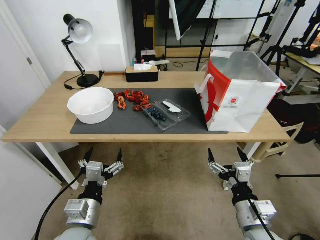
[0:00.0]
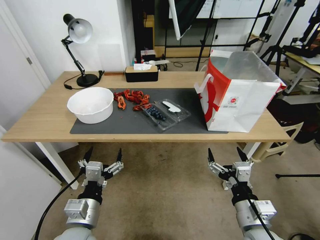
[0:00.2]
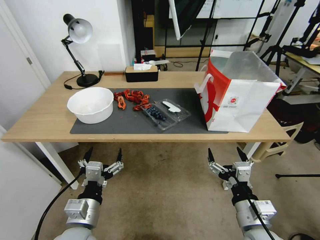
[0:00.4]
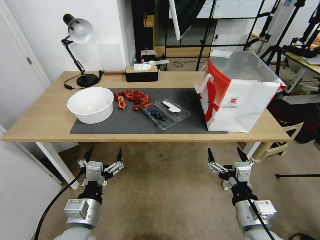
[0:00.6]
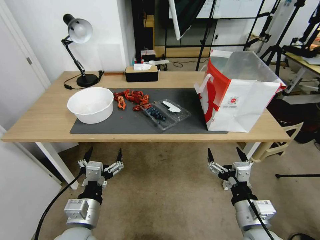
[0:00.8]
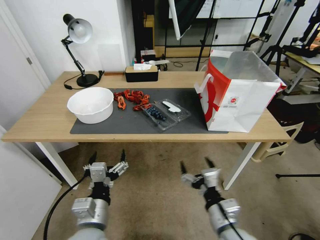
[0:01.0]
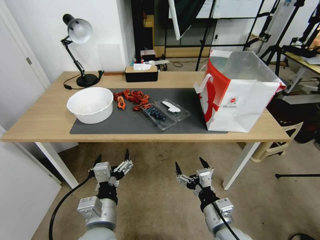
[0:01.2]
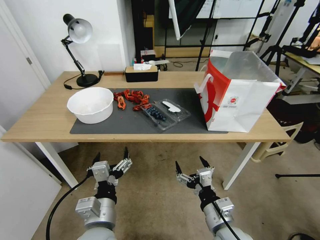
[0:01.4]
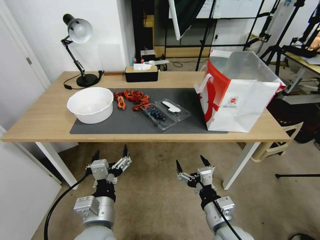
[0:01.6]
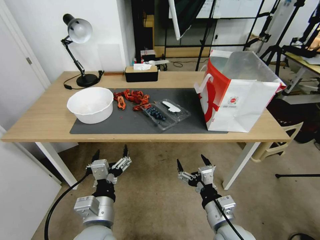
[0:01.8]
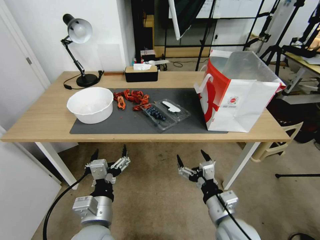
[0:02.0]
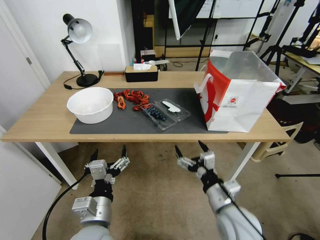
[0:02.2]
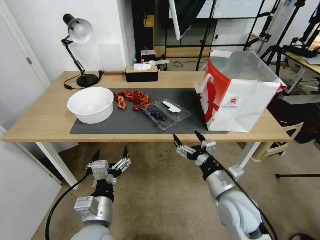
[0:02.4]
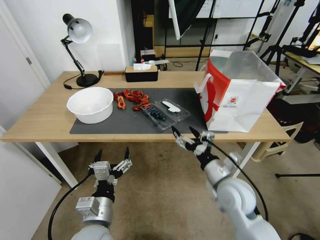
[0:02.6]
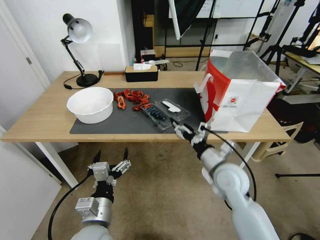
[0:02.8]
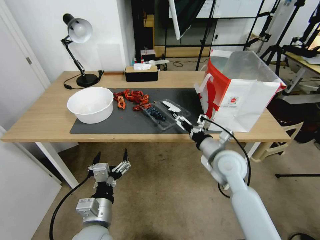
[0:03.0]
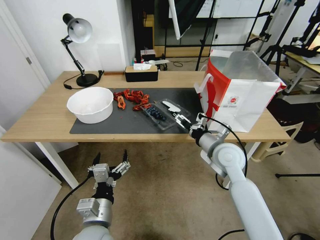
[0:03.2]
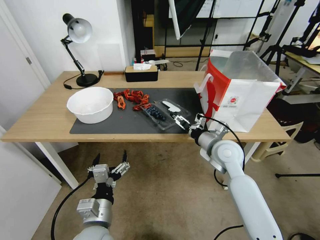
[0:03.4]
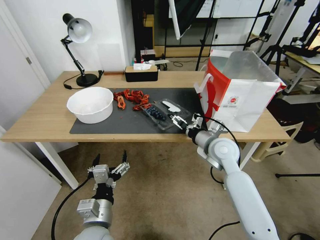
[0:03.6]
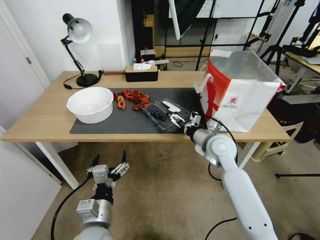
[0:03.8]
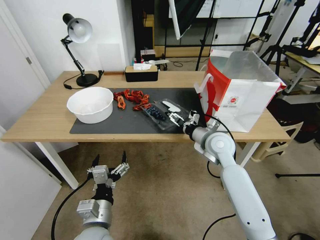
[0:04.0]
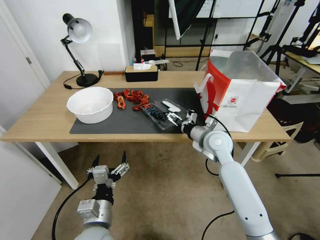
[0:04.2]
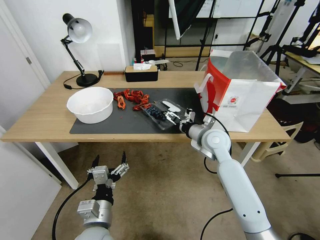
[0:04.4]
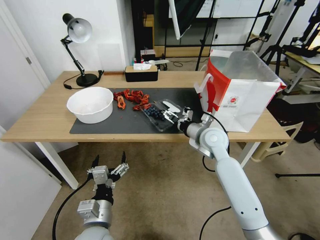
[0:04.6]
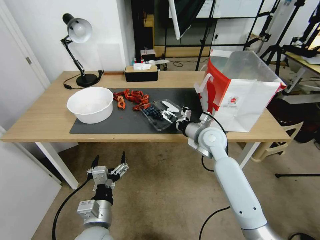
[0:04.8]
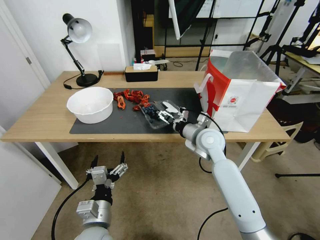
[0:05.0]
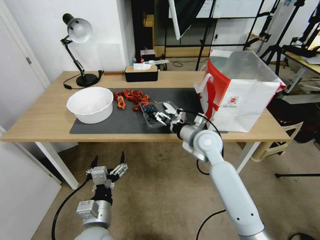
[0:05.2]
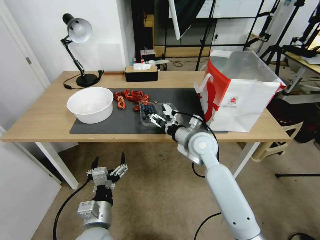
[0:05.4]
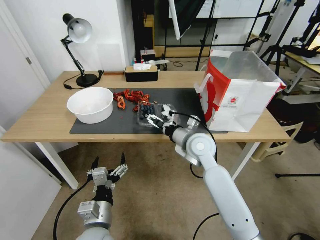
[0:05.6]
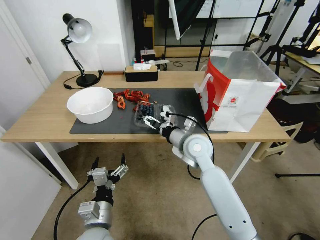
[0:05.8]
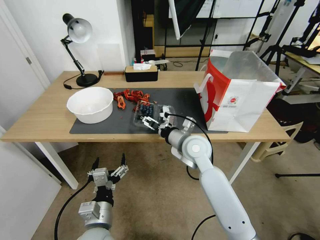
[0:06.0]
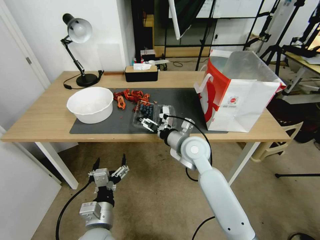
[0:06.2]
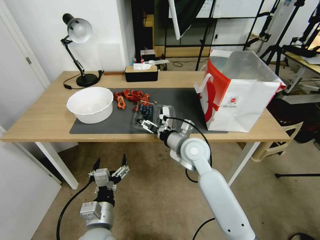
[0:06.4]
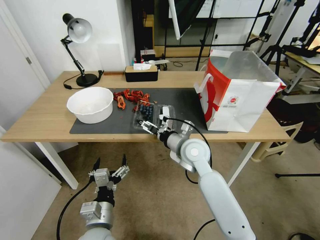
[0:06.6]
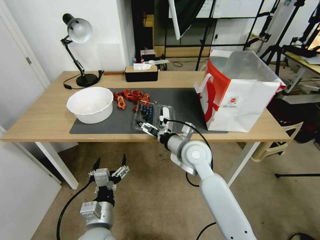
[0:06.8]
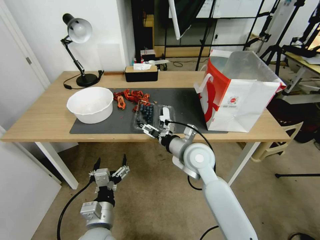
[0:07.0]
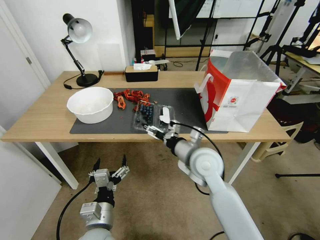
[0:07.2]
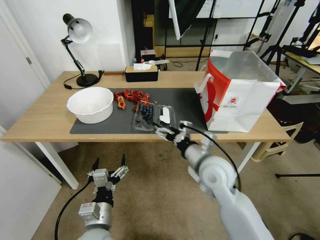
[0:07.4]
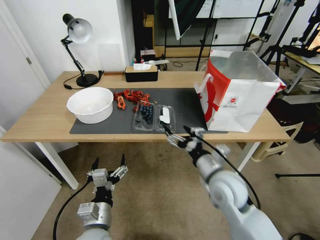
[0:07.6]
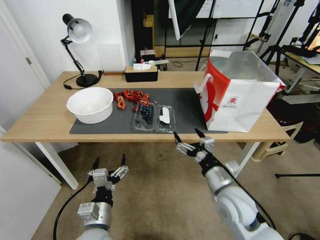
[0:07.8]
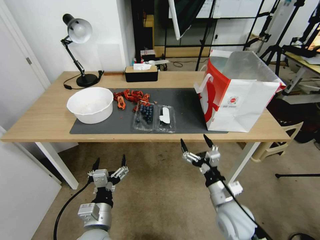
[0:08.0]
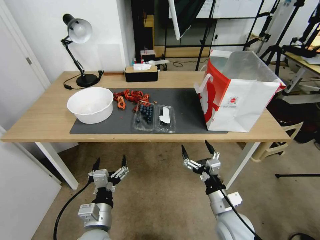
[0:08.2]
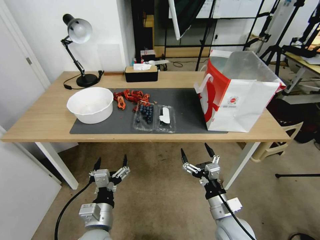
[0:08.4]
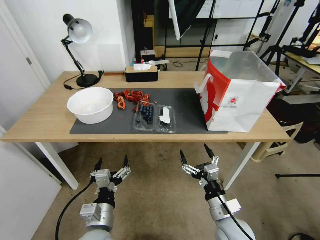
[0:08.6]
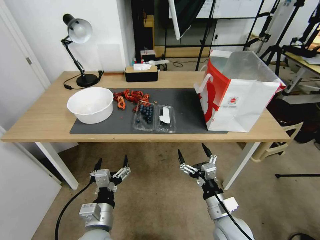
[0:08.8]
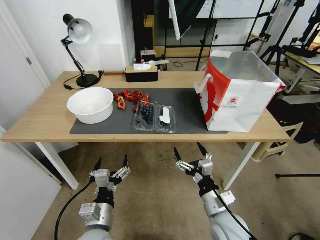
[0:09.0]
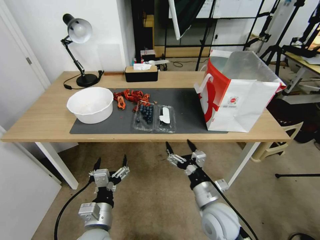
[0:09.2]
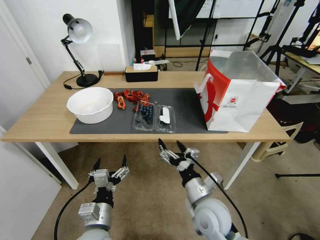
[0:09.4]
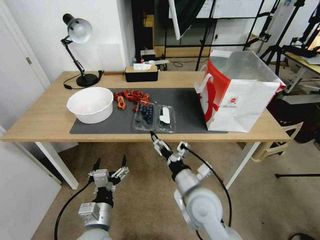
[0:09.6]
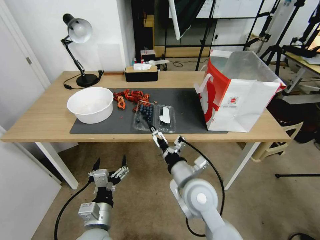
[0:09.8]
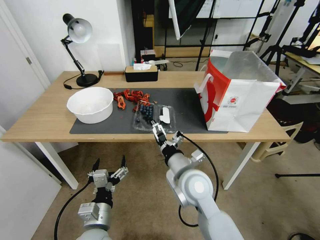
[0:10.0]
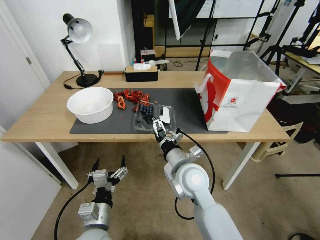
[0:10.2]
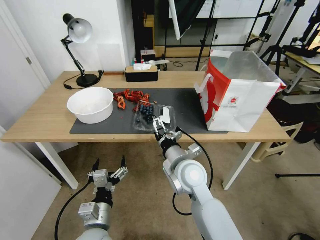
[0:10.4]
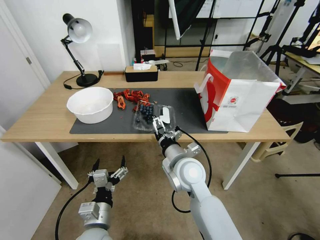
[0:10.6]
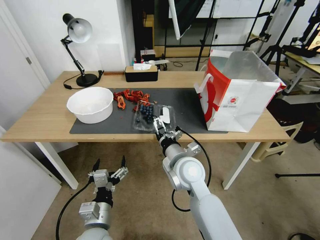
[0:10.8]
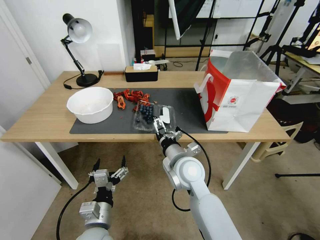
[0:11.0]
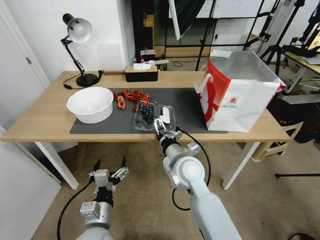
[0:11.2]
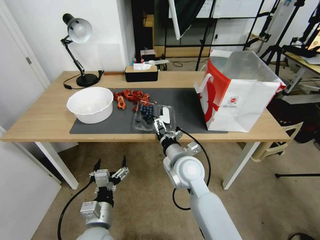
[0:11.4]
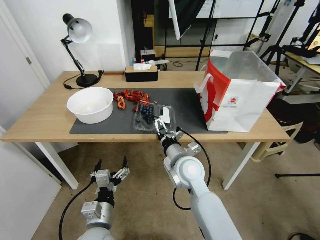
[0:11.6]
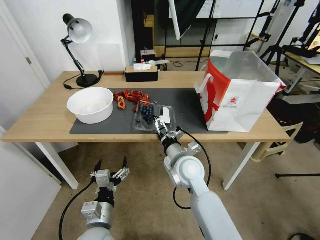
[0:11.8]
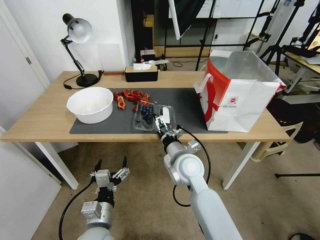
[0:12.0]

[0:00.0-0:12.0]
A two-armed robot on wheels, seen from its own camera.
Task of the whole recording: Close the takeout container lid, then place the container into the takeout bag.
0:01.6 to 0:03.0: The right gripper heads forward, covering some 20 cm.
0:03.0 to 0:04.4: The right gripper goes roughly 10 cm forward.
0:04.4 to 0:06.0: The right gripper heads to the left, covering about 10 cm.
0:06.0 to 0:07.6: The right gripper is displaced backward and to the right by approximately 15 cm.
0:07.6 to 0:09.0: The right gripper goes some 10 cm downward and backward.
0:09.0 to 0:10.4: The right gripper moves forward, to the left and upward, roughly 20 cm.
0:10.4 to 0:12.0: The grippers move only a little.

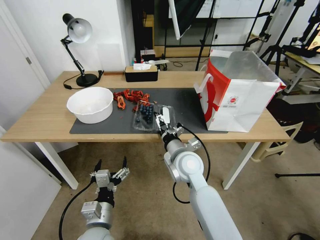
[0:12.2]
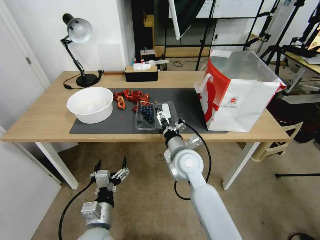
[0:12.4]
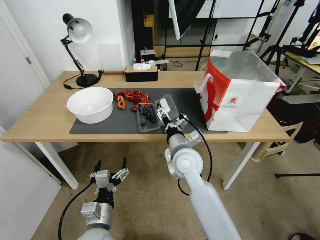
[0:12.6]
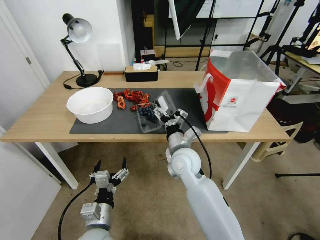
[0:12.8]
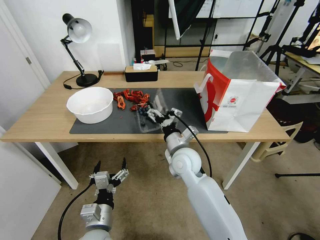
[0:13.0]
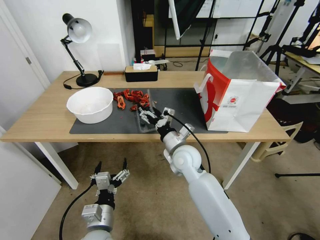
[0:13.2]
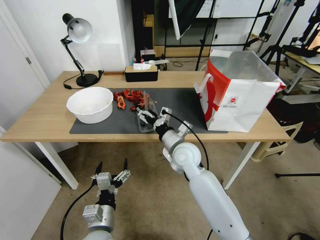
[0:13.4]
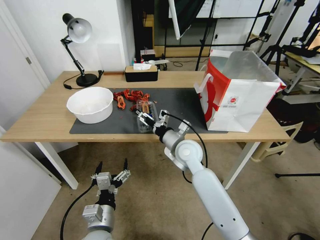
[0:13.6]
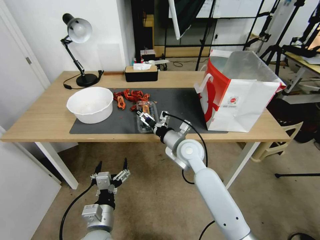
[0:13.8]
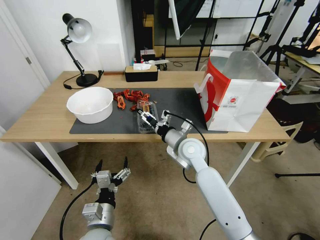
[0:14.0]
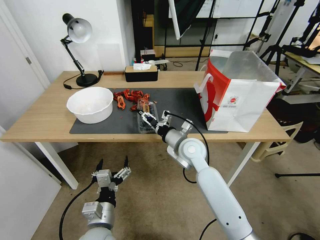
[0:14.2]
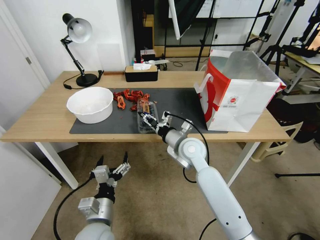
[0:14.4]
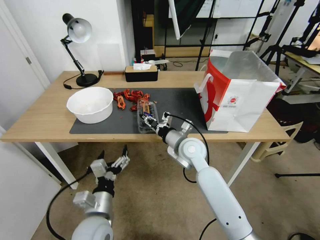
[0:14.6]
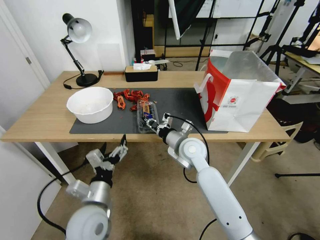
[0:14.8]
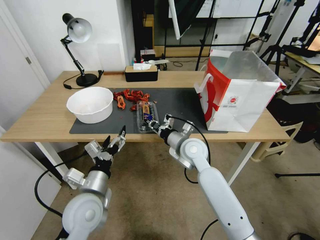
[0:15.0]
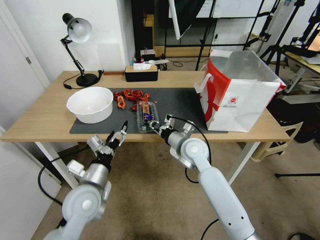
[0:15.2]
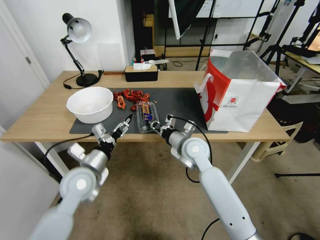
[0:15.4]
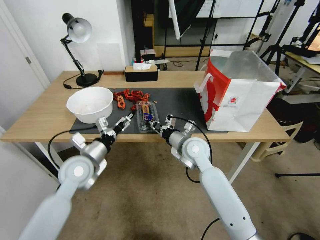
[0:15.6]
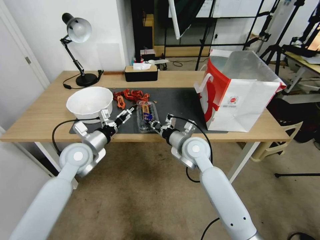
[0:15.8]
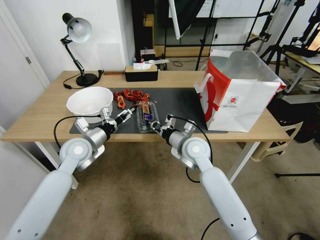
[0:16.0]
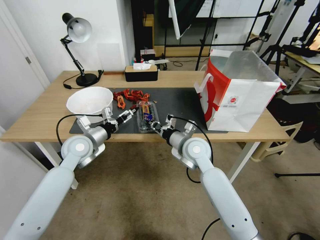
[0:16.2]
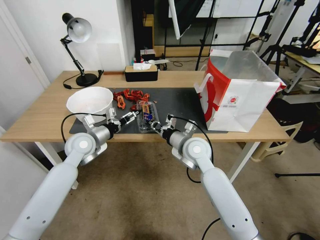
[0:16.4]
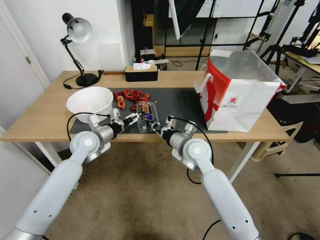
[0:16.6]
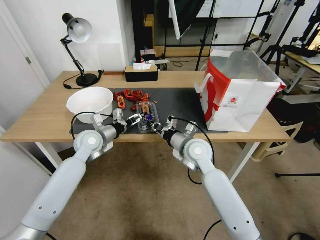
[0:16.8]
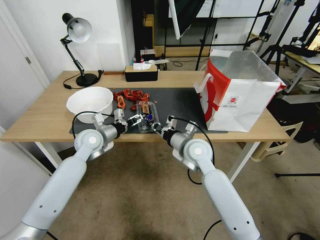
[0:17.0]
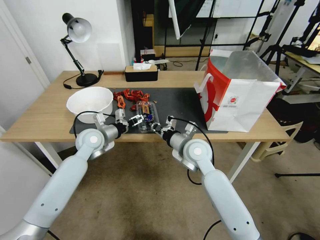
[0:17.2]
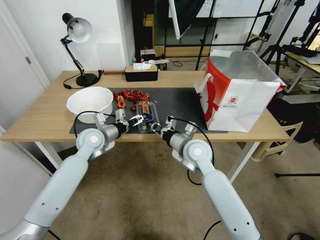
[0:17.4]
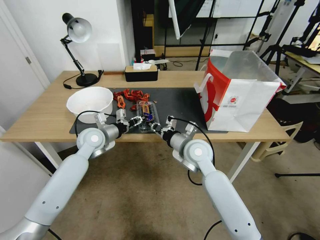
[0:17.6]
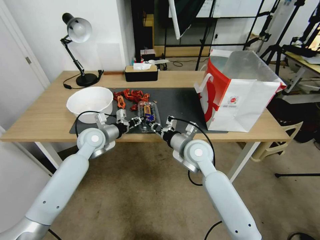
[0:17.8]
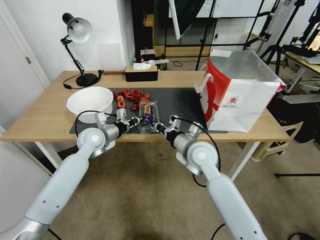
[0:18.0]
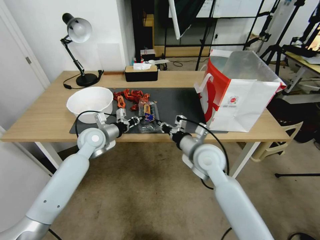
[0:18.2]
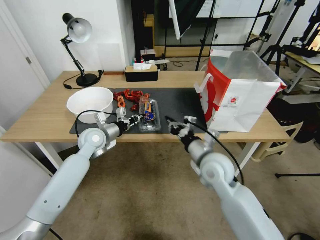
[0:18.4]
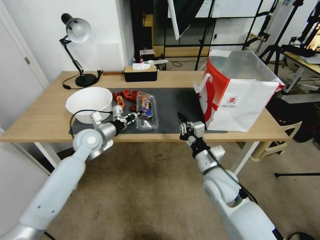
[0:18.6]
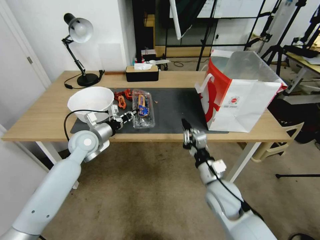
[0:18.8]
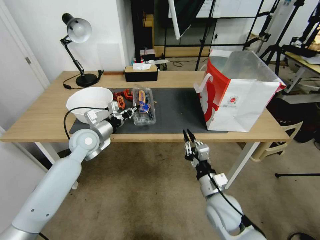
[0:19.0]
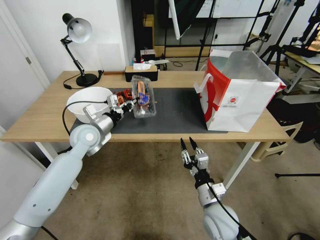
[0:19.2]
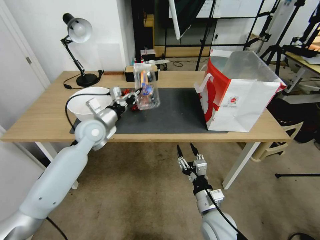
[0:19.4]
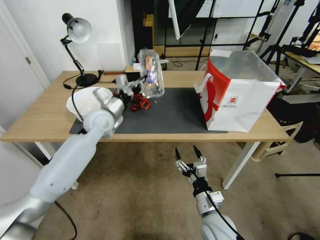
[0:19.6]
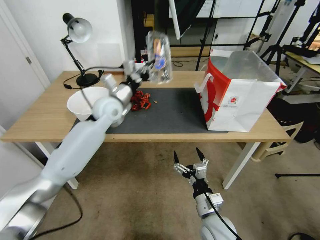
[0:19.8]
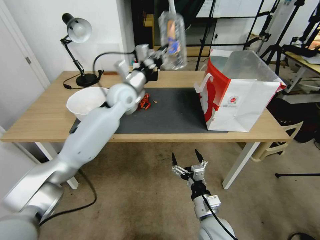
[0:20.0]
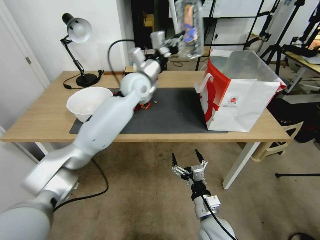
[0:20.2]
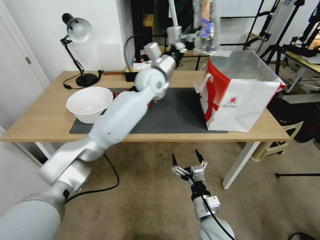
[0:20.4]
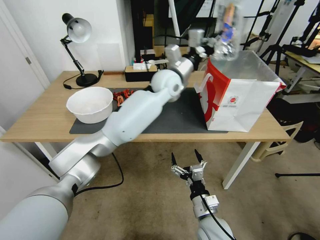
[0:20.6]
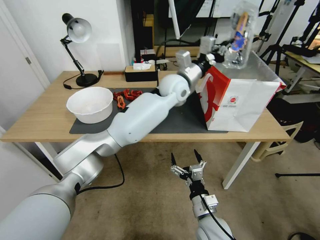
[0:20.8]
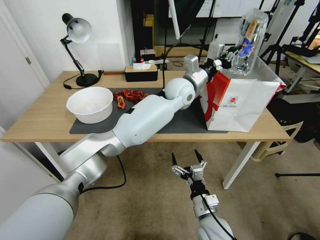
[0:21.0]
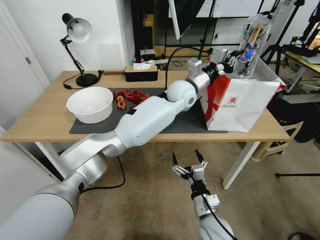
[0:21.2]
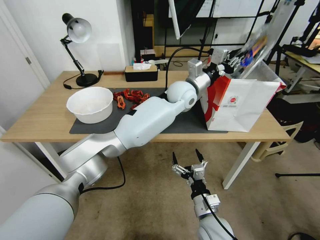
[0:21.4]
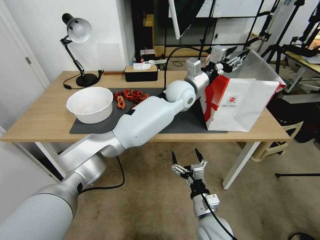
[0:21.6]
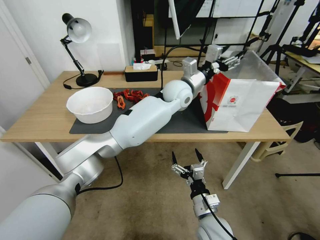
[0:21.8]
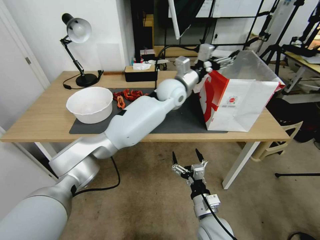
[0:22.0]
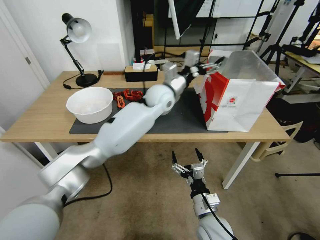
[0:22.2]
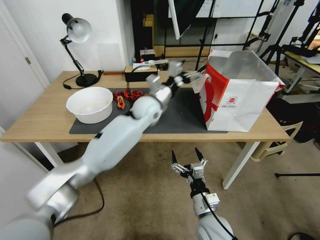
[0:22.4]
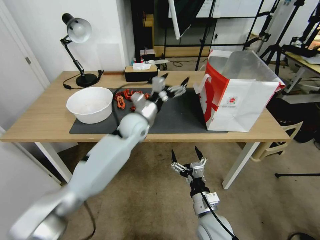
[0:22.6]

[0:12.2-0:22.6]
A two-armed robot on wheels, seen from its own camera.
Task of the whole recording: Close the takeout container lid, then place the container into the takeout bag.
0:12.2 to 0:13.6: The right gripper shifts by approximately 5 cm.
0:13.6 to 0:15.2: The right gripper closes its fingers. Meanwhile the left gripper goes approximately 15 cm forward and upward.
0:15.2 to 0:16.6: The left gripper goes approximately 15 cm forward.
0:16.6 to 0:18.2: The left gripper closes up.
0:18.2 to 0:19.6: The right gripper is displaced backward and downward by about 20 cm, and opens. Meanwhile the left gripper heads upward, covering roughly 10 cm.
0:19.6 to 0:21.2: The left gripper travels to the right by some 30 cm.
0:21.2 to 0:22.6: The left gripper goes approximately 20 cm to the left, downward and backward, and opens its fingers.
